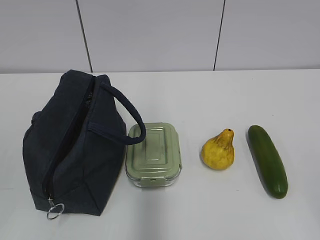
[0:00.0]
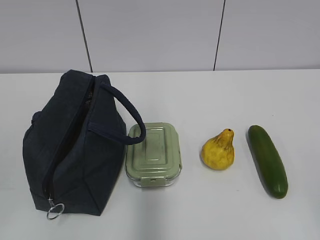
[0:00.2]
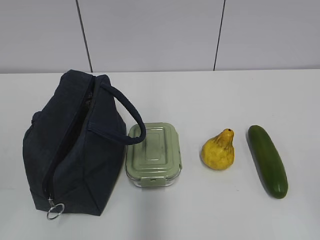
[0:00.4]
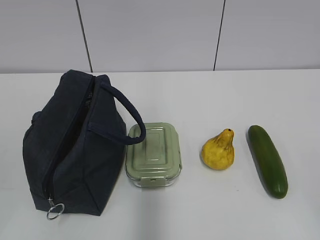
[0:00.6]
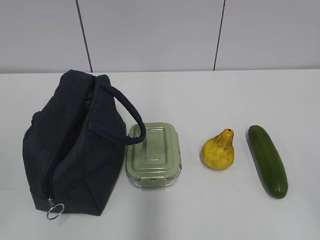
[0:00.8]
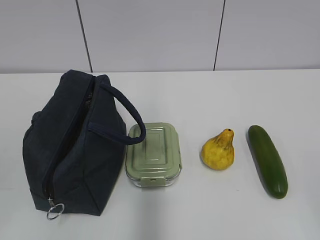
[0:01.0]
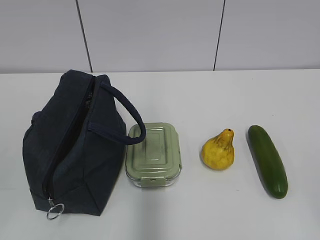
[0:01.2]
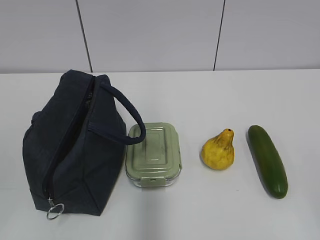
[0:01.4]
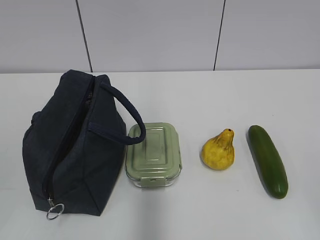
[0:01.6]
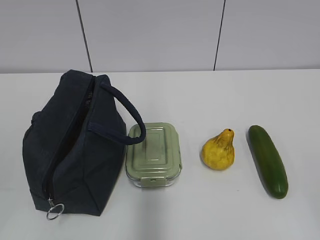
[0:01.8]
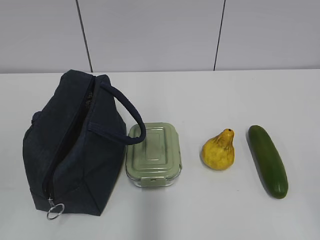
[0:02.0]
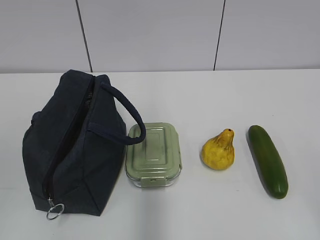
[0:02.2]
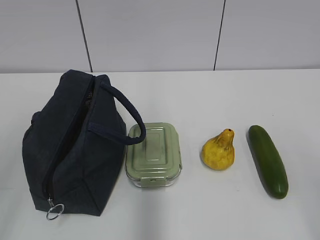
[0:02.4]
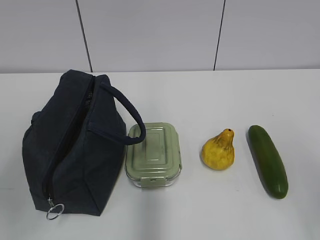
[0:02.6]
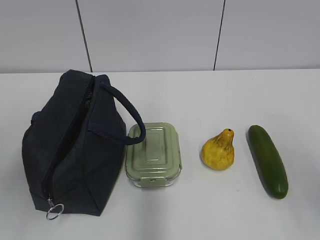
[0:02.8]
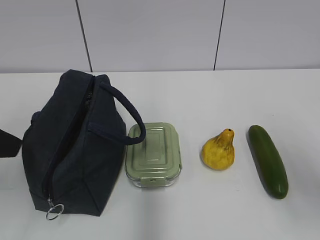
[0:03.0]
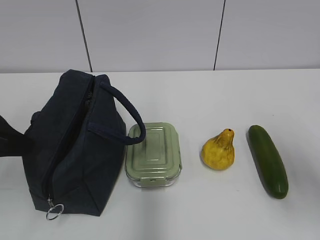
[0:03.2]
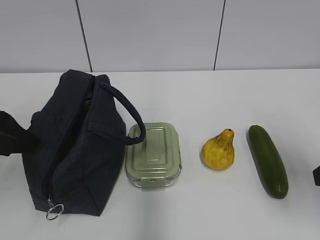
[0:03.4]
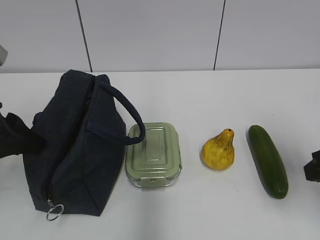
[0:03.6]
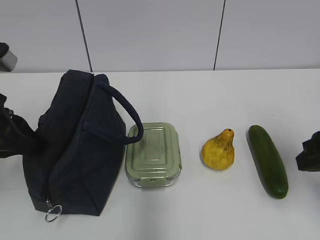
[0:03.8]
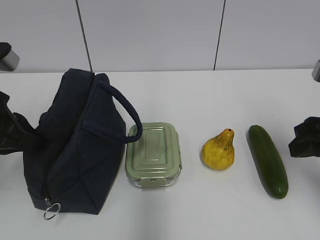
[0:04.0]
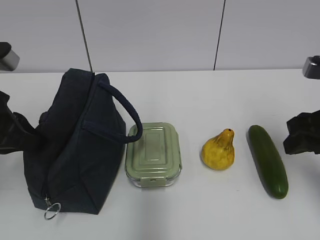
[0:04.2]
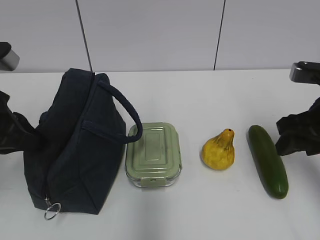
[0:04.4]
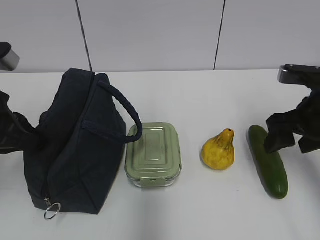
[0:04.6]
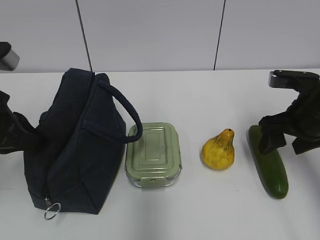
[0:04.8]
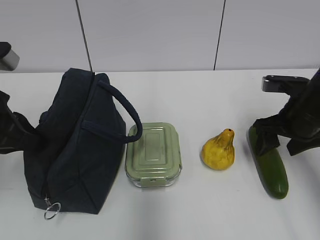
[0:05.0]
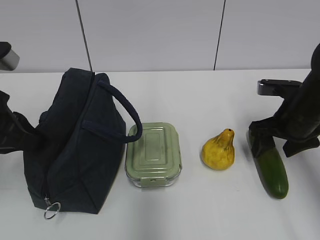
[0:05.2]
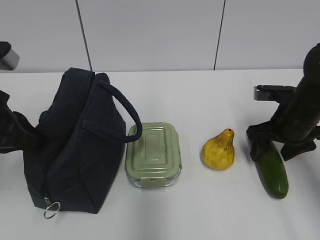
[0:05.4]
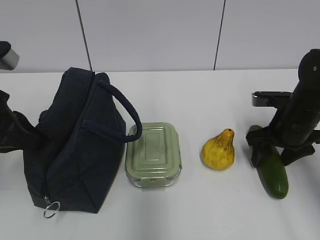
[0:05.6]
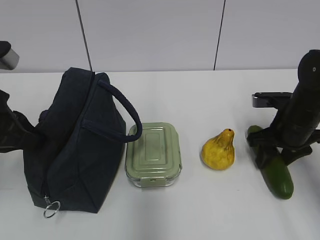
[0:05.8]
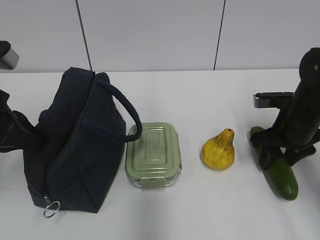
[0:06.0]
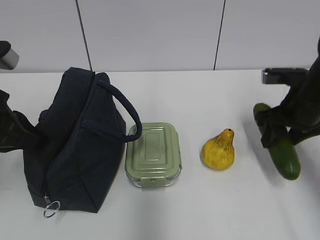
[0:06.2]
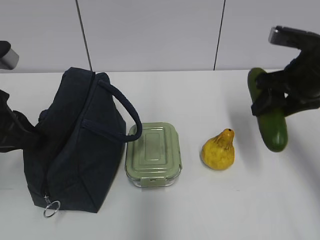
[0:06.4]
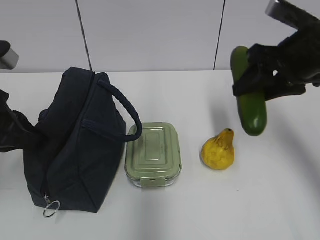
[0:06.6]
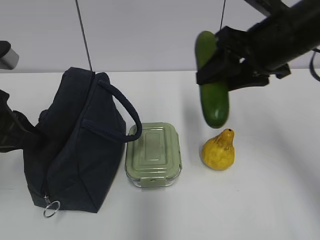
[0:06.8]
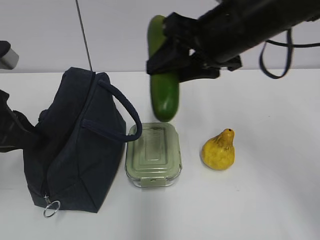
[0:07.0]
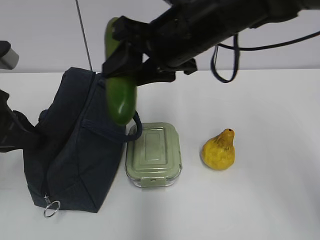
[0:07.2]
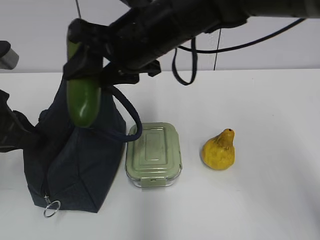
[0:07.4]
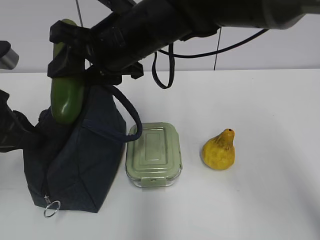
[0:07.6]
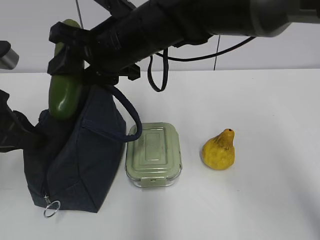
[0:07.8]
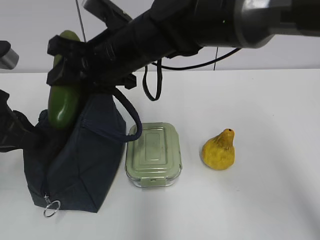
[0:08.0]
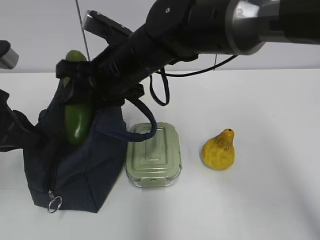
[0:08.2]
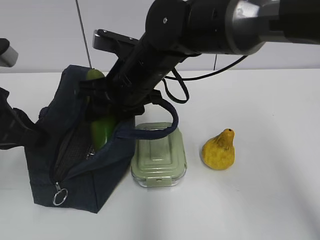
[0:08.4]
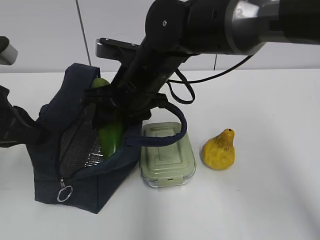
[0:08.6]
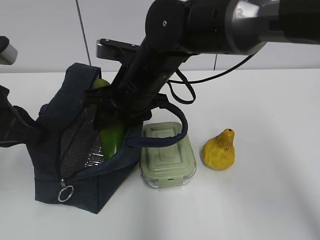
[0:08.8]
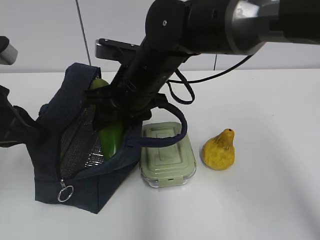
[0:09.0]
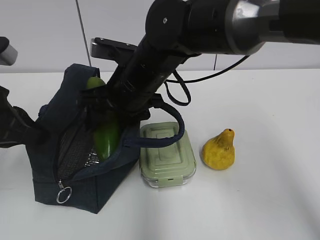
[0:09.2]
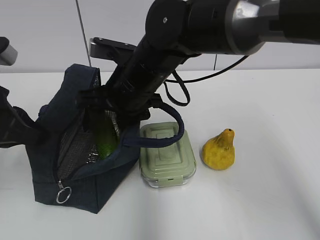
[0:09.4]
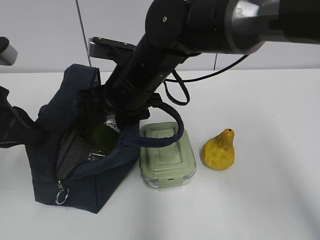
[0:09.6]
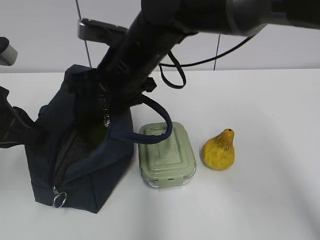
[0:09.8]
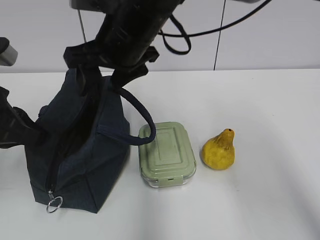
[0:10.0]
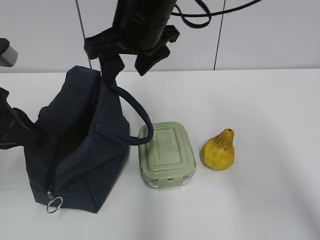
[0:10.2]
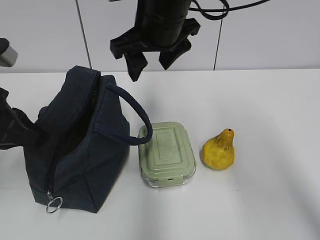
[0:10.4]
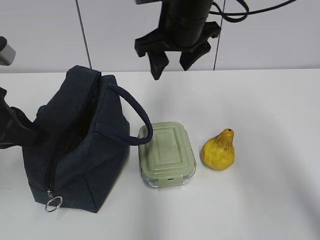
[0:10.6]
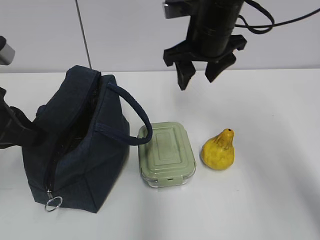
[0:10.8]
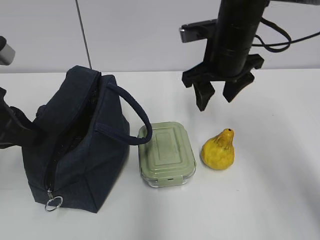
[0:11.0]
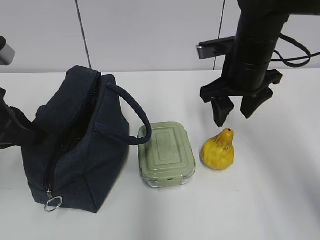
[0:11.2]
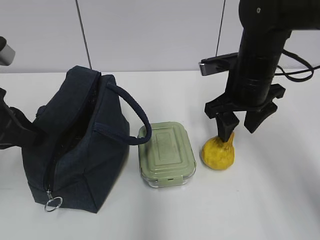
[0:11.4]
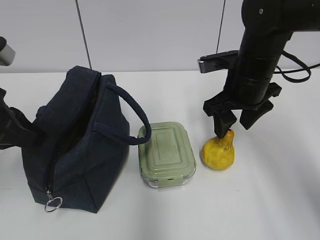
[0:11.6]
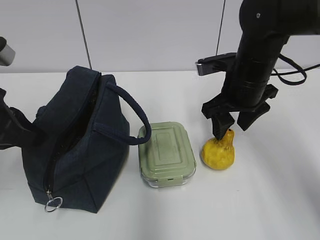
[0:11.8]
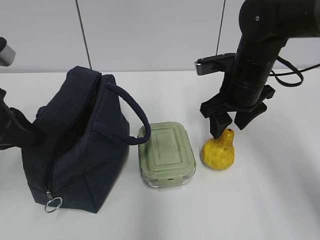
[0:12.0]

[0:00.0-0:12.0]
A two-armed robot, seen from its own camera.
Step, 0:00.0 to 0:05.8: Grab the cucumber with your right hand.
Step, 0:08.2 to 0:09.6: Place it into the bag with your right hand.
0:01.6 to 0:03.0: Both grippers move forward, approximately 15 cm.
0:03.0 to 0:04.4: The right gripper moves forward, some 15 cm, while the left gripper shifts some 5 cm forward, and closes up.
0:04.4 to 0:06.0: The right gripper travels downward and forward by roughly 10 cm.
0:06.0 to 0:07.6: The right gripper travels to the left and upward by about 30 cm.
0:07.6 to 0:09.0: The right gripper goes roughly 5 cm downward.
0:09.0 to 0:10.4: The right gripper moves upward, approximately 10 cm.
0:10.4 to 0:12.0: The right gripper shifts approximately 15 cm to the right and downward.

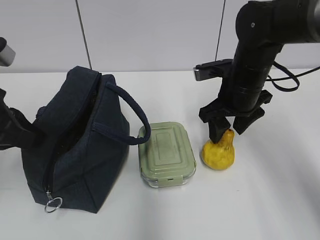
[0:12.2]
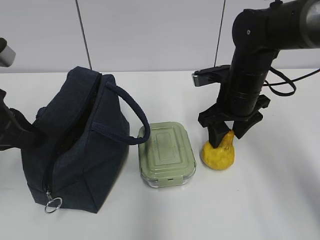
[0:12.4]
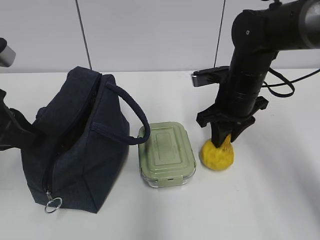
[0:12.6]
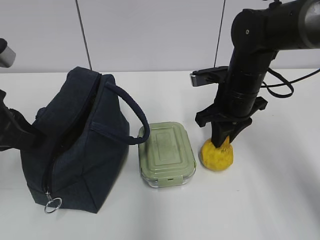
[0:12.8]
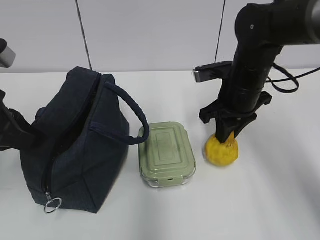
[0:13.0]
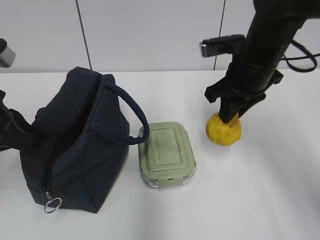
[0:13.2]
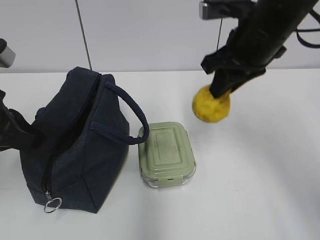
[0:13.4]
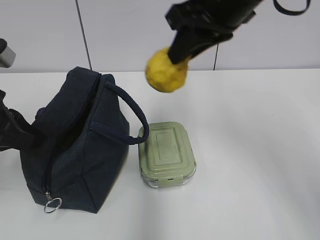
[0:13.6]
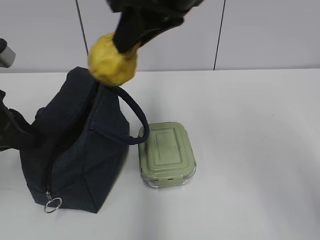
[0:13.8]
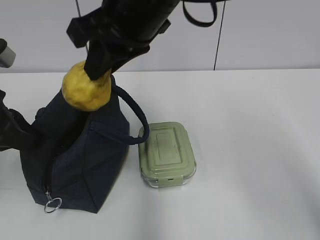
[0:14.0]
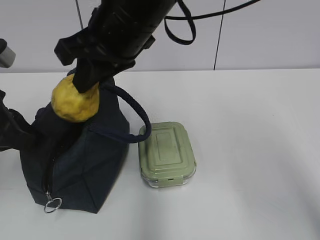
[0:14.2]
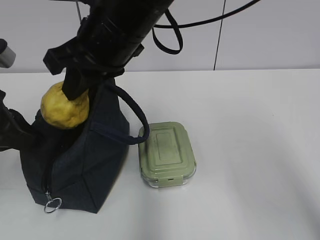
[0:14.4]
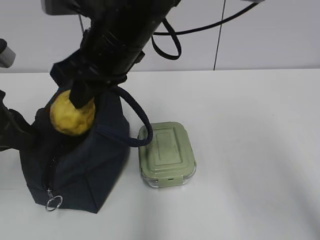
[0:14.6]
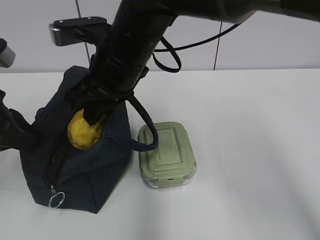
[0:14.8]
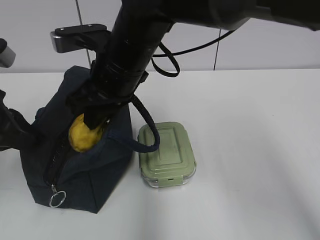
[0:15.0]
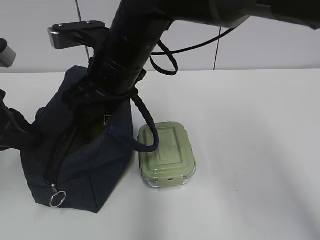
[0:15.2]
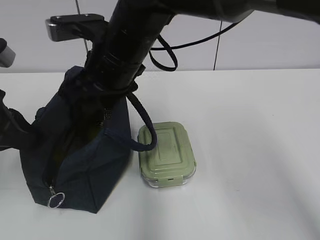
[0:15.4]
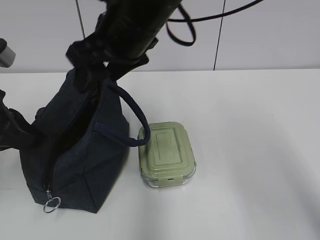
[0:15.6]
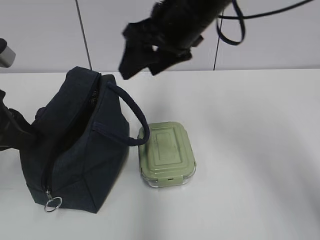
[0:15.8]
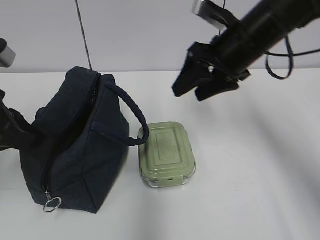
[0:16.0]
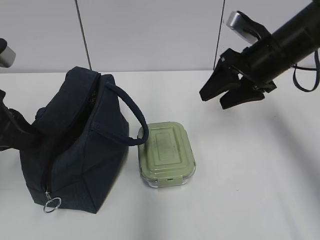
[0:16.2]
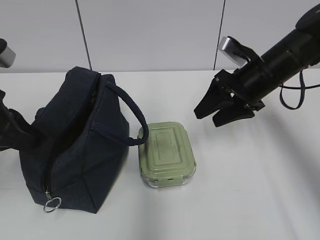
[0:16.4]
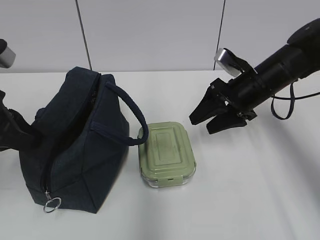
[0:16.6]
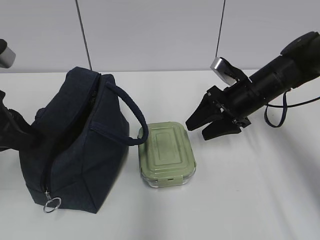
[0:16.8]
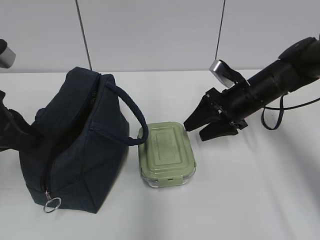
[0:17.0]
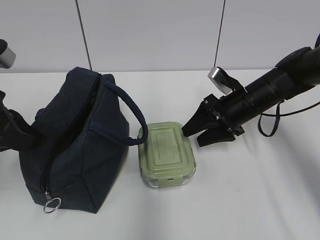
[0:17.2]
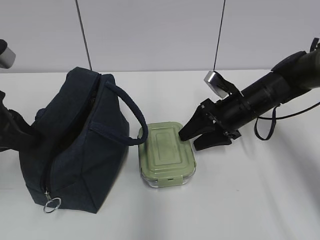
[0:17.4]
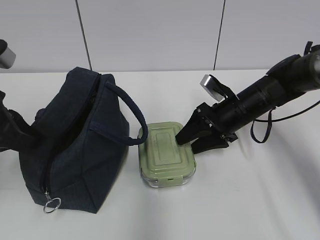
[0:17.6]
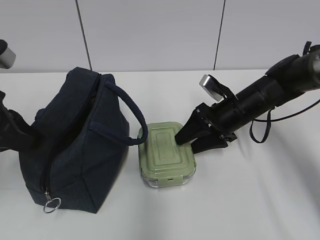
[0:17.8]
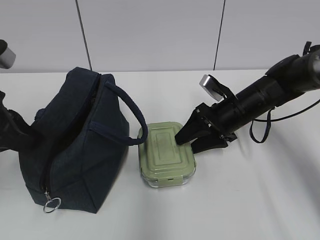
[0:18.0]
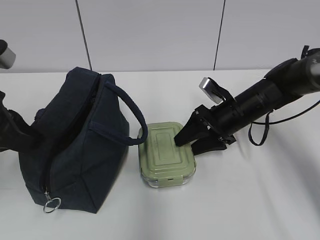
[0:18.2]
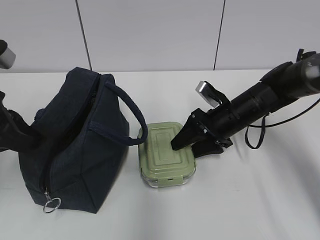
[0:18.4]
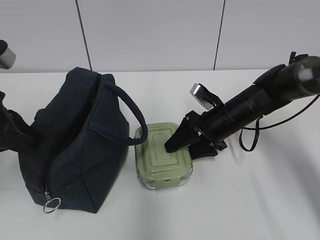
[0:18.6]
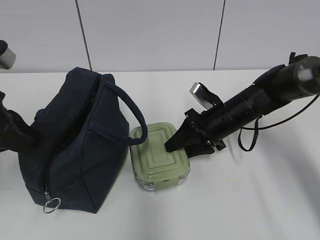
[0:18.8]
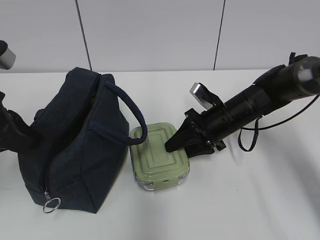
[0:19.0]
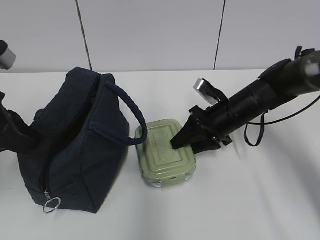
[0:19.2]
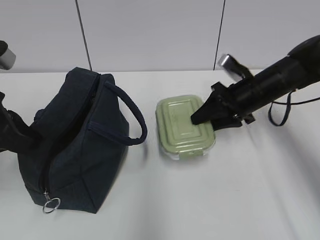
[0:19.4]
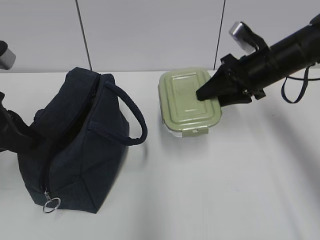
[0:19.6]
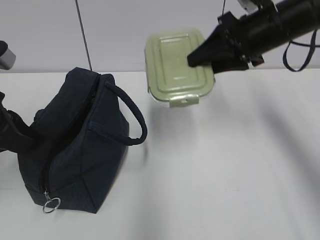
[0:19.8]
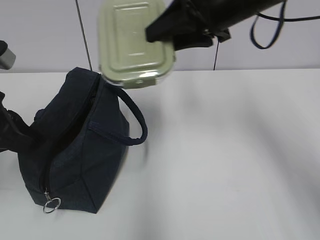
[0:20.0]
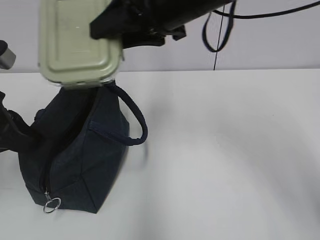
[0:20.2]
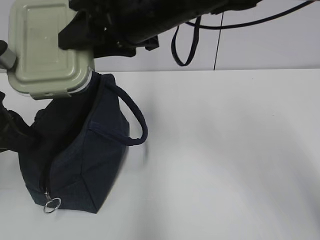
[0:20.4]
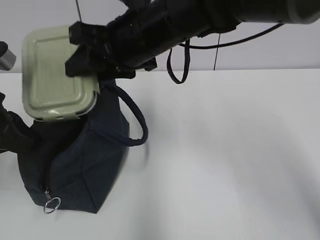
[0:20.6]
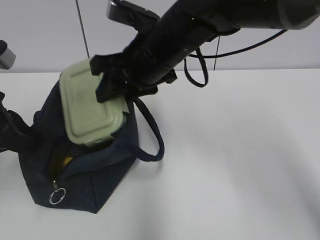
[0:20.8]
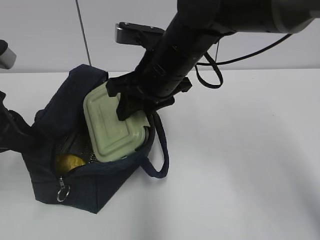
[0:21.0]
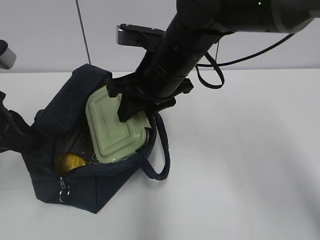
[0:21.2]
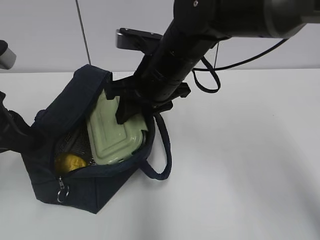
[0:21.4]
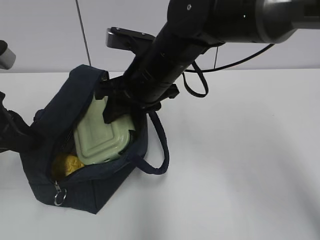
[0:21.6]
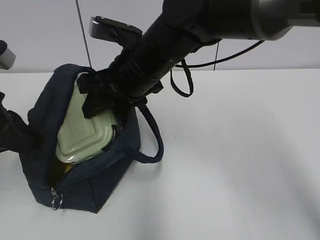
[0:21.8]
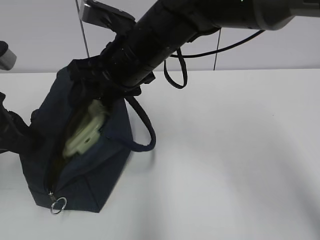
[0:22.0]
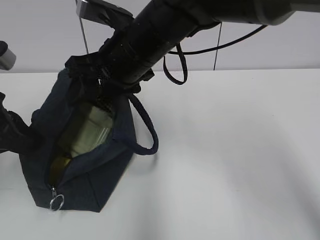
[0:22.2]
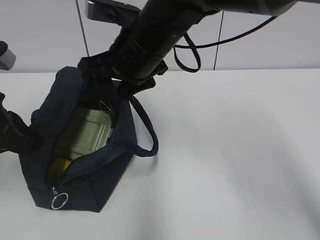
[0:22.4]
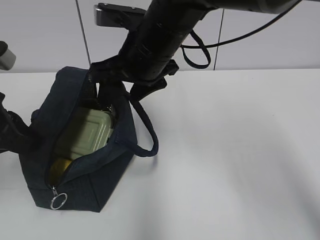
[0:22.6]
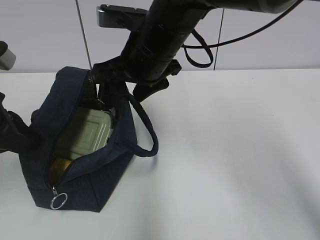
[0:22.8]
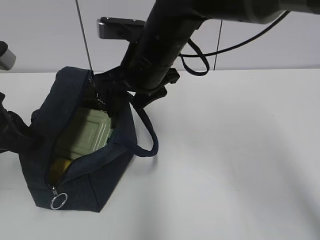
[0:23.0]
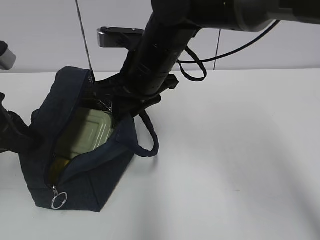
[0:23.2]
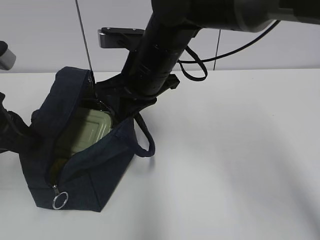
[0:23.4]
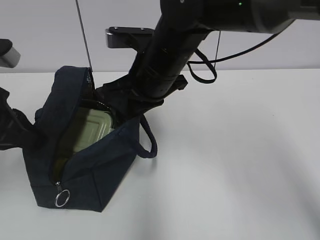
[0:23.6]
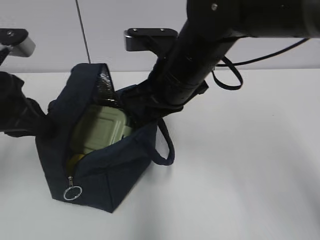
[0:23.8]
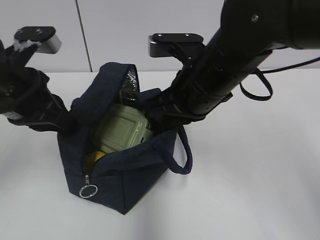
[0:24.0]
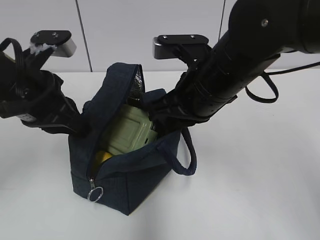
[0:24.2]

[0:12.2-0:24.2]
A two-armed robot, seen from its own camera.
Step, 0:12.8 to 0:15.2: Place it into the bag with your right hand.
Step, 0:15.4 to 0:18.8: Grab the lunch box with your right hand.
Step, 0:22.4 to 0:23.4: Grab the lunch bag with your right hand.
0:12.2 to 0:13.8: The right gripper moves upward and to the left, approximately 20 cm, and closes.
0:13.8 to 0:15.2: The right gripper moves downward and to the left, approximately 15 cm, and opens its fingers.
0:15.2 to 0:16.6: The right gripper travels to the right and downward by about 25 cm.
0:16.6 to 0:18.2: The right gripper moves downward, about 5 cm.
0:18.2 to 0:19.8: The right gripper shifts about 20 cm upward, and closes.
0:19.8 to 0:21.2: The right gripper is displaced to the left by approximately 15 cm.
0:22.6 to 0:24.2: The left gripper shifts some 5 cm to the right. The right gripper heads to the right and backward, covering approximately 10 cm, and closes up.
